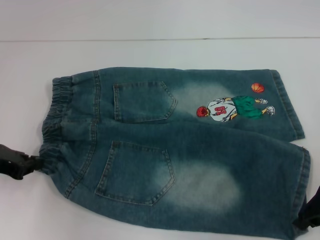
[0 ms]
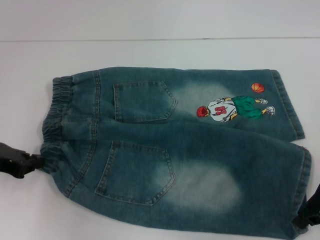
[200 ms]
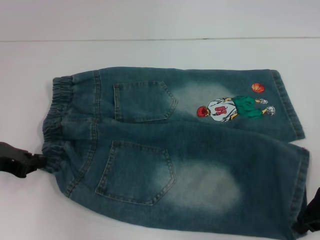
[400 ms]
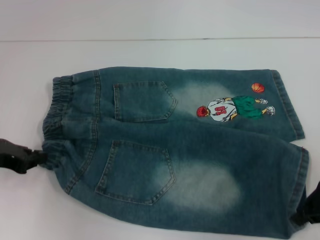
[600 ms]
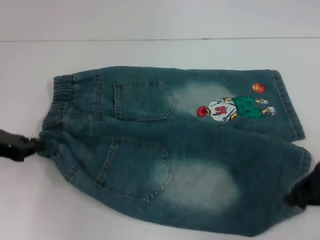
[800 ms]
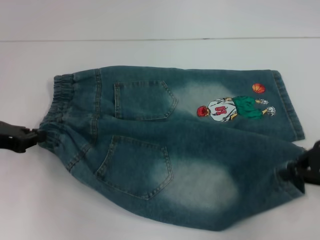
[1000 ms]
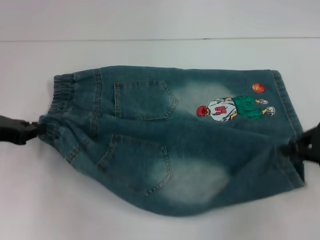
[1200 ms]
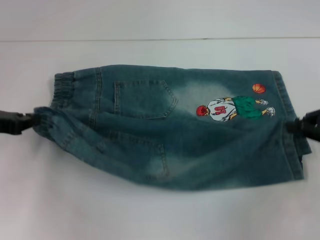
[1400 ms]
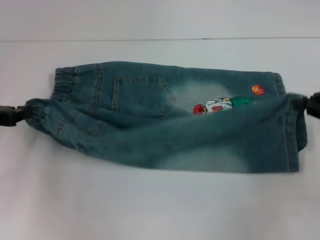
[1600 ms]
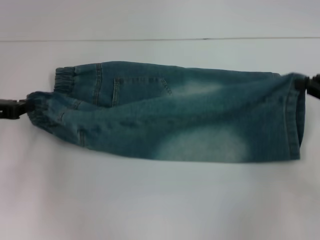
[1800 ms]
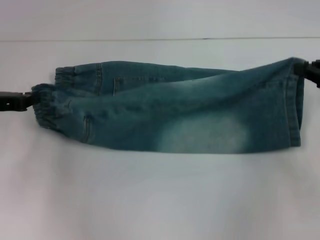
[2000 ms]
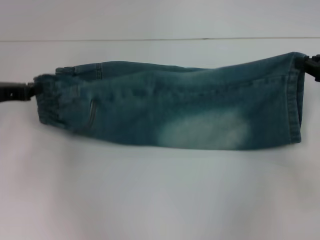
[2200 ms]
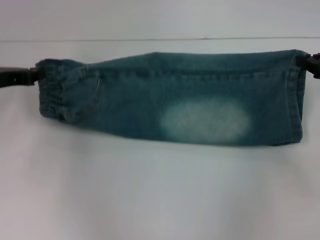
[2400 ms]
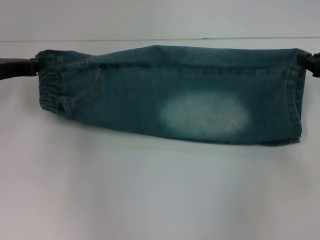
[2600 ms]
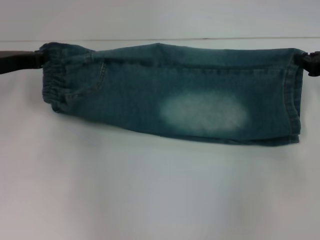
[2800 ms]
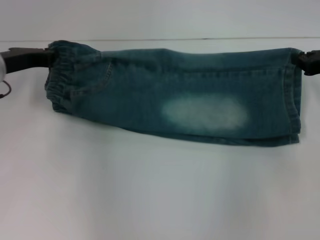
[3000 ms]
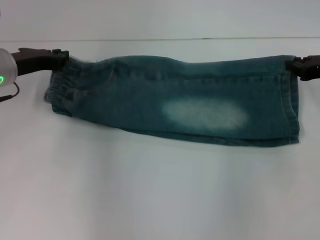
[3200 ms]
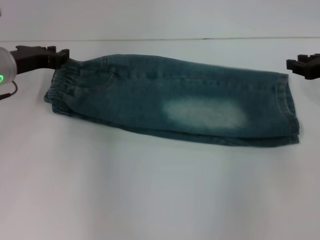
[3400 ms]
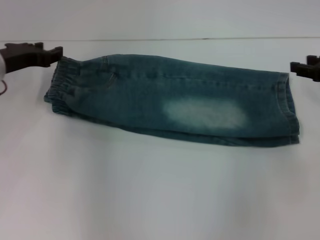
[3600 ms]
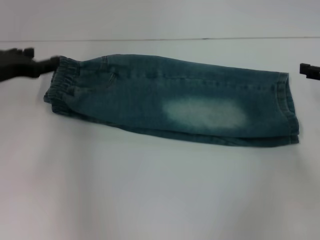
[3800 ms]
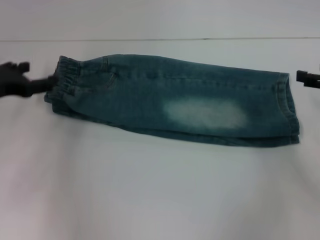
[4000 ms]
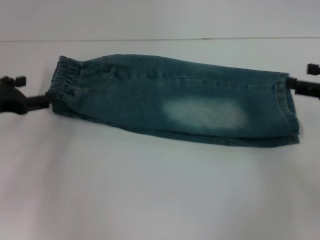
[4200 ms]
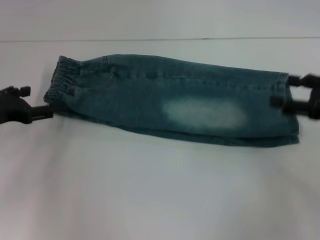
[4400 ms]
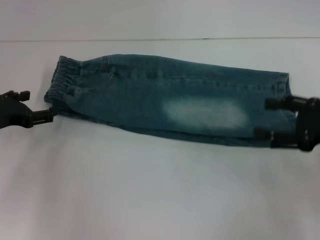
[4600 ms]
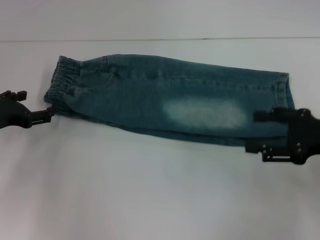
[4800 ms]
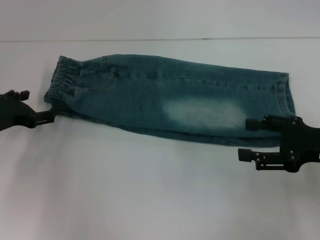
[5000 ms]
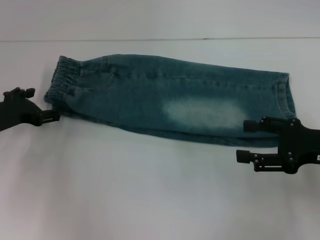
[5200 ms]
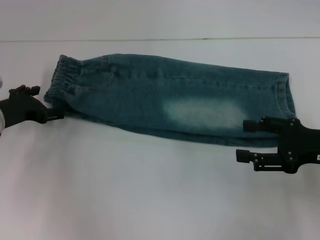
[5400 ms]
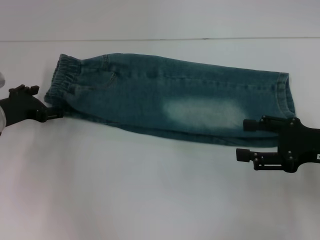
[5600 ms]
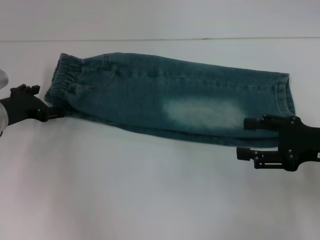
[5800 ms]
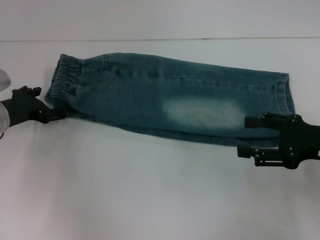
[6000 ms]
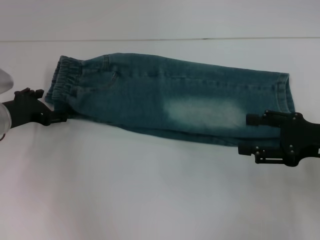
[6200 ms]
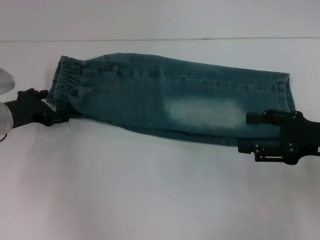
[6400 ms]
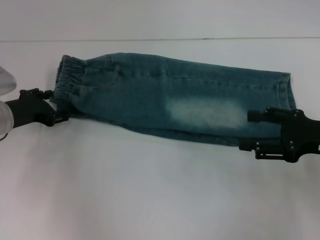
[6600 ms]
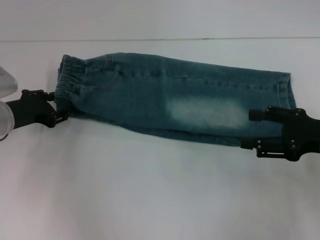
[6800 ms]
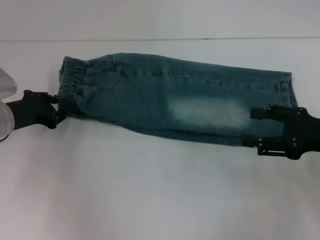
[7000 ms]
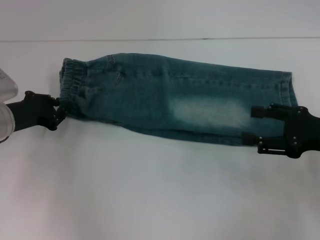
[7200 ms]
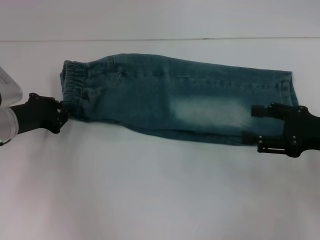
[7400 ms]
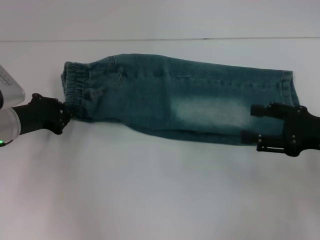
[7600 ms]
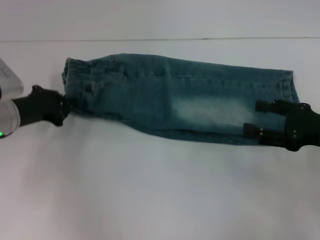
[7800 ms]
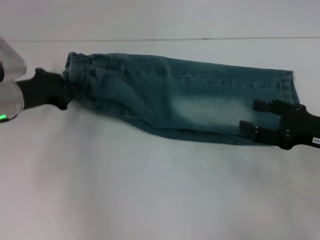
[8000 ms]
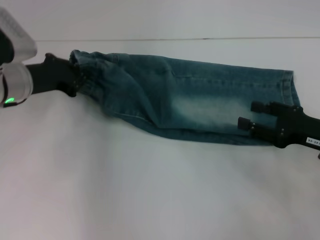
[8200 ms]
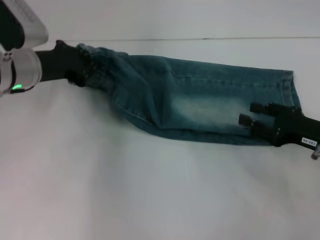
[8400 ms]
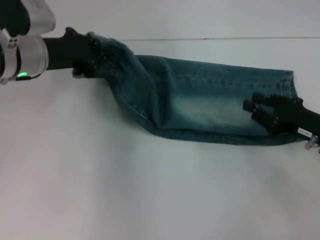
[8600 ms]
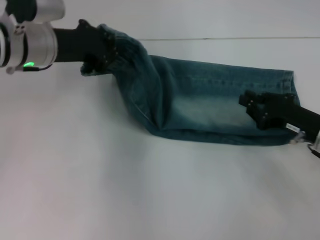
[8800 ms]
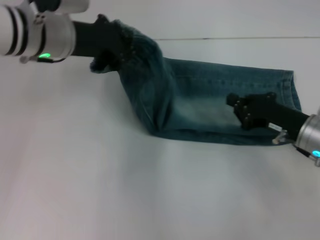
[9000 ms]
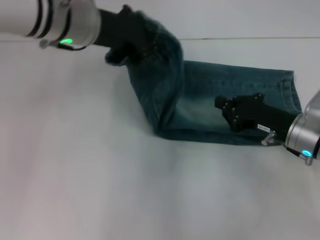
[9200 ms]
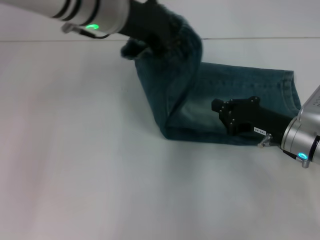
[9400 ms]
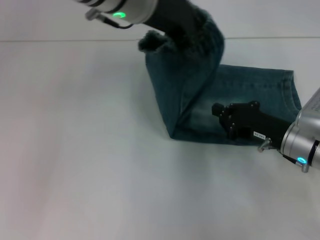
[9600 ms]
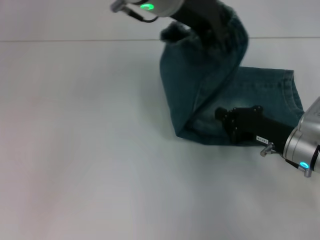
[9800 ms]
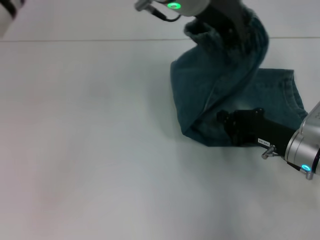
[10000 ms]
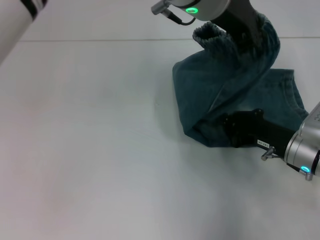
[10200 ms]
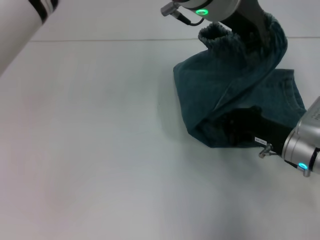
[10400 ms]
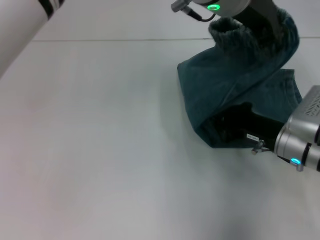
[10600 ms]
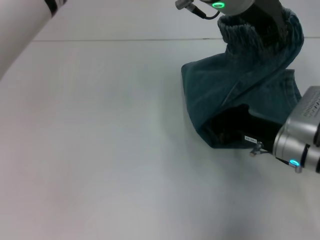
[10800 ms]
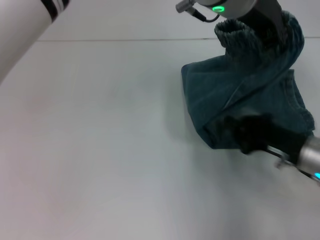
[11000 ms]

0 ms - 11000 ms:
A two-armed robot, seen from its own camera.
Step, 0 ms - 3800 ms: Fold upward with your right hand.
Step, 4000 ms - 7000 ms: Hold the waistband with your left hand.
Step, 7200 ms - 10800 ms: Press the middle of the pants with your right hand.
0 ms - 1600 ms: The right gripper heads to the right, covering approximately 5 cm.
1600 ms - 3200 ms: The right gripper moves forward, some 5 cm; the left gripper goes roughly 10 cm to the right and forward.
3200 ms - 4800 ms: The left gripper shifts about 10 cm backward, to the left and downward, and opens up; the right gripper is displaced backward by roughly 10 cm, and opens its fingers.
4800 ms - 6200 ms: The grippers move only a little.
6200 ms - 7800 ms: The left gripper closes up.
7800 ms - 9400 ms: The left gripper travels to the right and upward by some 25 cm. Meanwhile the right gripper heads to the left and downward, covering about 10 cm, and closes.
9400 ms - 11000 ms: The left gripper is displaced to the right by roughly 15 cm.

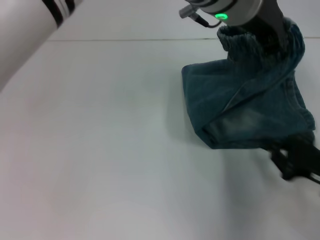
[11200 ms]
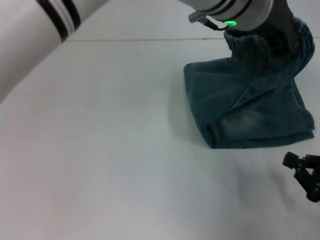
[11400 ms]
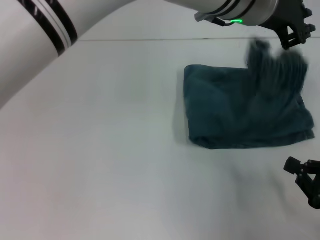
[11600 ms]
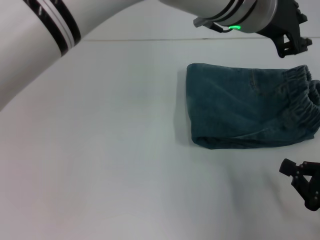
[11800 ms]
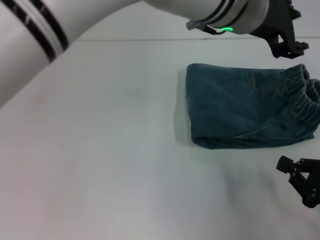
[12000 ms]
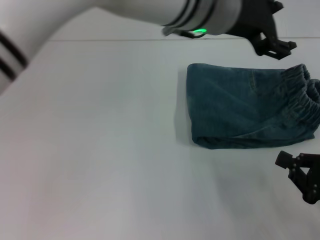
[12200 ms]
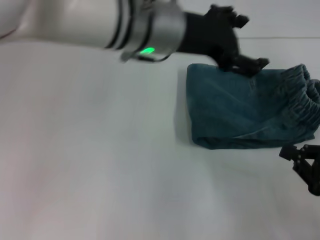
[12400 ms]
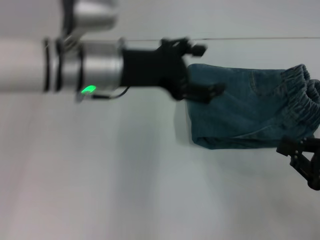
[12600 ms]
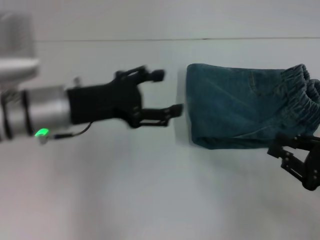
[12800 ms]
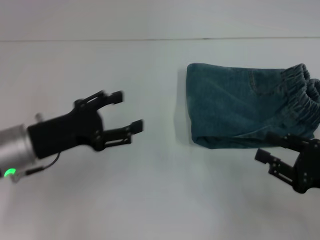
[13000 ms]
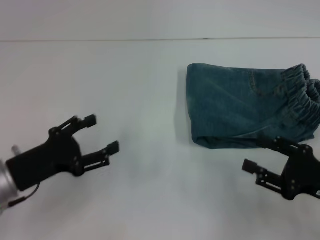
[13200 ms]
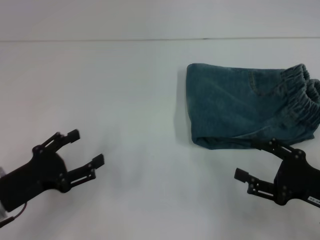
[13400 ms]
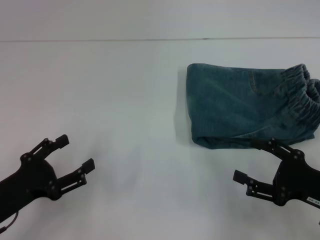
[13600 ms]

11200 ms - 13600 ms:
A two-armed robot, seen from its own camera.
Step, 11200 ms - 11600 ms: Fold to the right with your left hand.
11200 ms - 12400 ms: The left gripper is displaced to the left by some 10 cm, and opens its fingers.
12400 ms - 13600 ms: The left gripper is displaced to the left, downward and backward by approximately 35 cm, while the right gripper opens its fingers.
